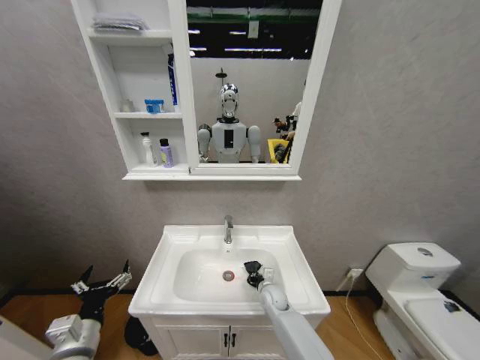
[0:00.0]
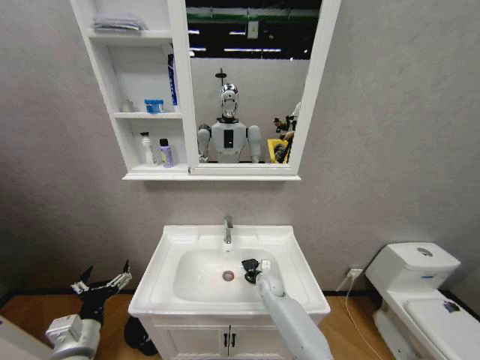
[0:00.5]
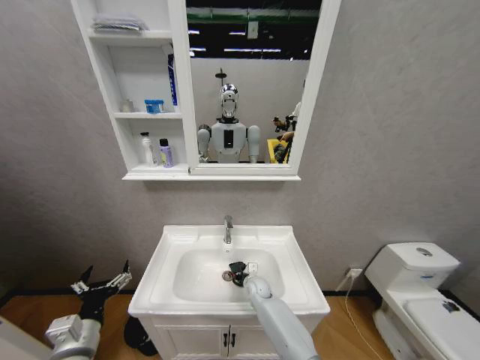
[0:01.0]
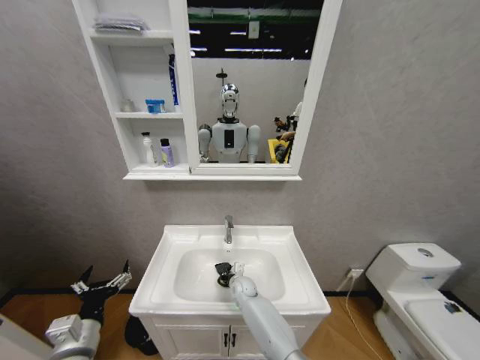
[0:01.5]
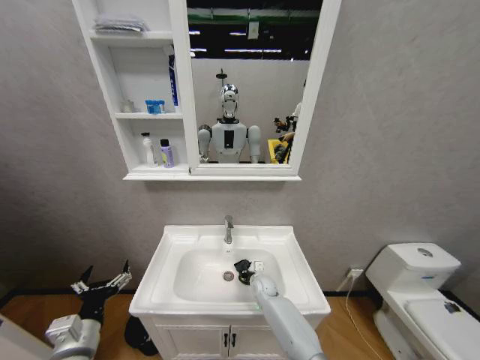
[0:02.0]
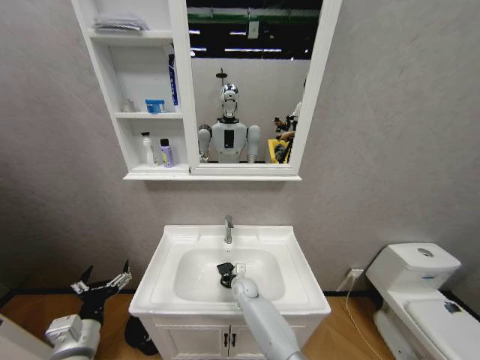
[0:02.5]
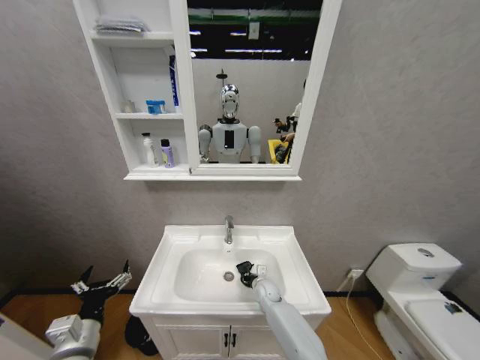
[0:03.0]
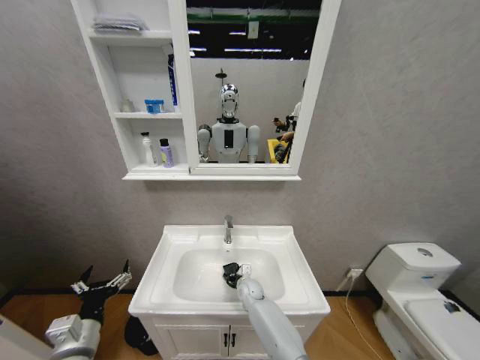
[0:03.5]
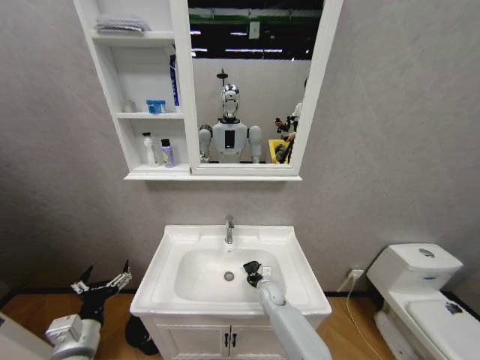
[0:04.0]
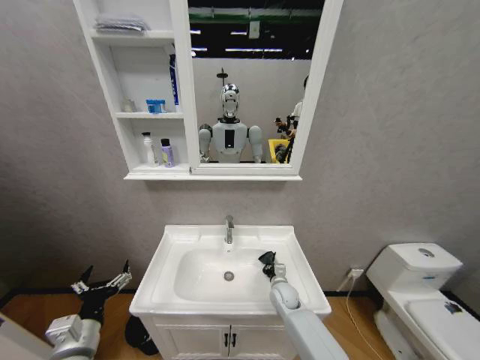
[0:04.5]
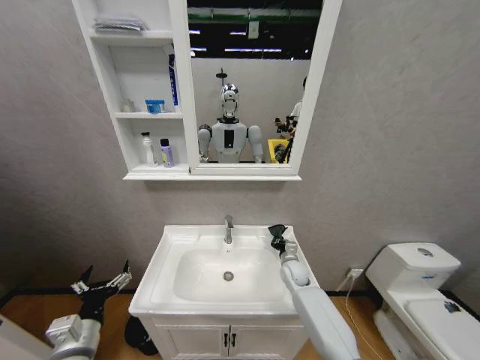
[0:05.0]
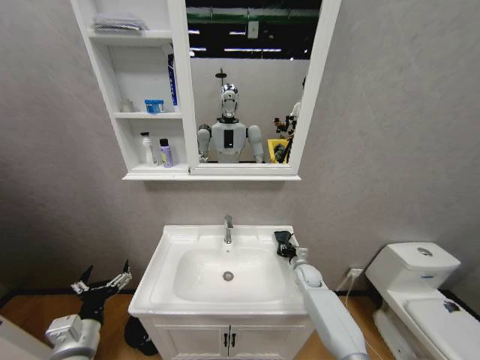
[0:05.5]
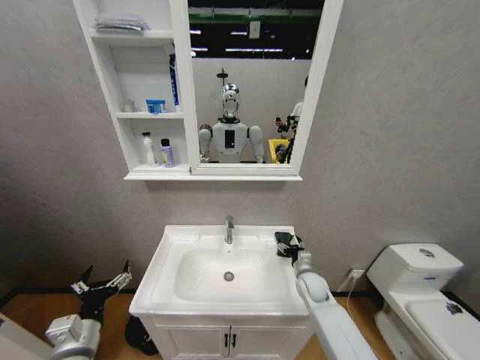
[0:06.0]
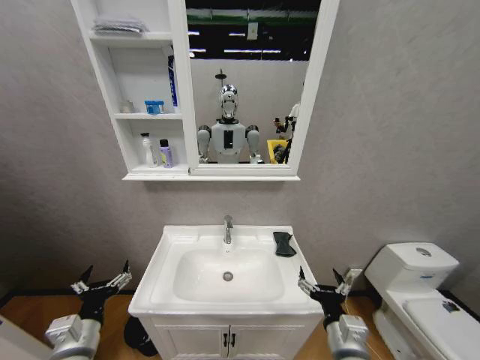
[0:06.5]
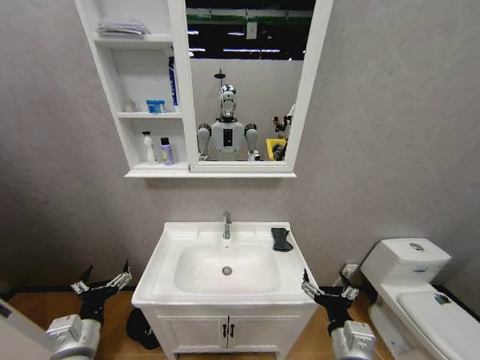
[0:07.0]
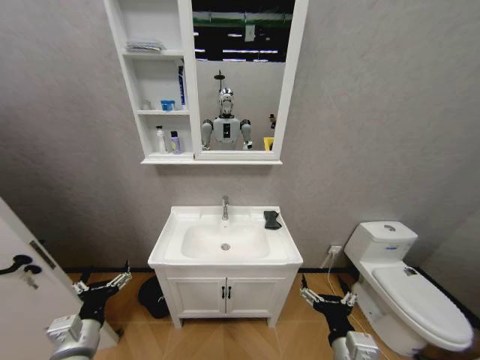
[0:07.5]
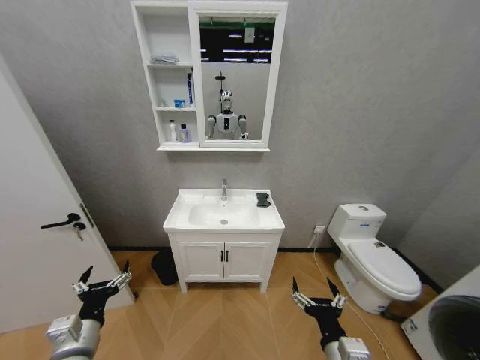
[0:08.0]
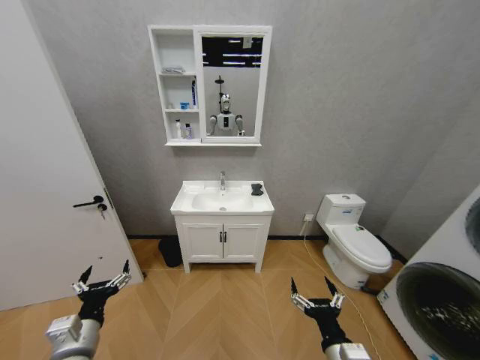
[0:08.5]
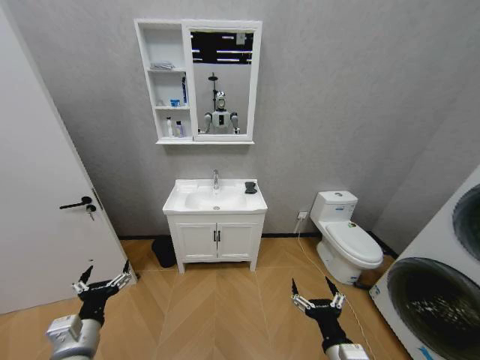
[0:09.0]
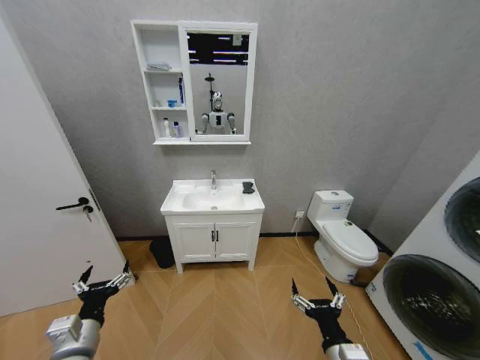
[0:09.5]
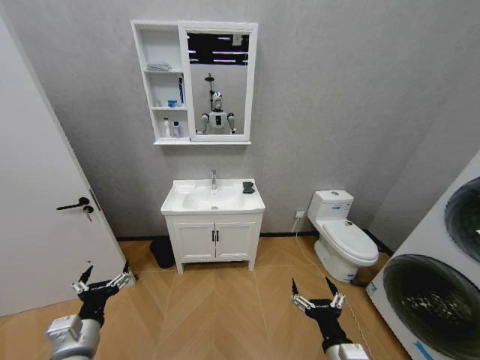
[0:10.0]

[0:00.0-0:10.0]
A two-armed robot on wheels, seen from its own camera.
Task of the whole recording: Move facial cleanser and shampoo from washbasin to cabinet, then wipe washbasin with towel.
0:00.0 to 0:02.0: The right gripper moves roughly 10 cm to the left and comes back.
0:02.0 to 0:04.0: The right gripper moves left and right over some 10 cm, changing direction 3 times.
0:04.0 to 0:06.0: The right gripper heads to the right and upward, covering roughly 15 cm, and opens up.
0:06.0 to 0:08.0: The right gripper shifts approximately 30 cm backward.

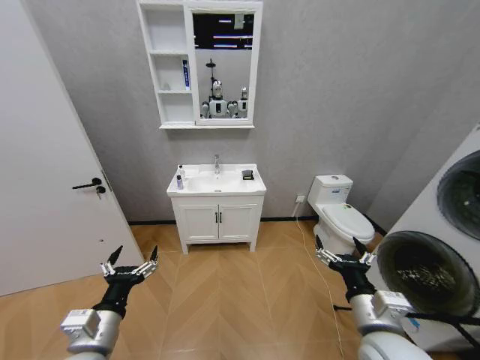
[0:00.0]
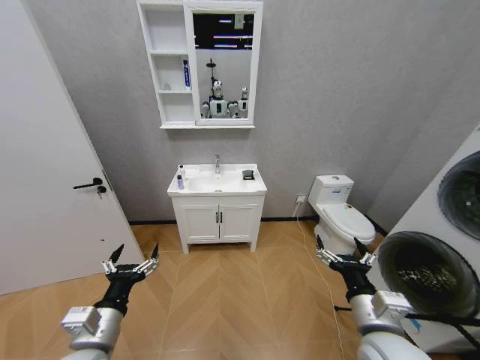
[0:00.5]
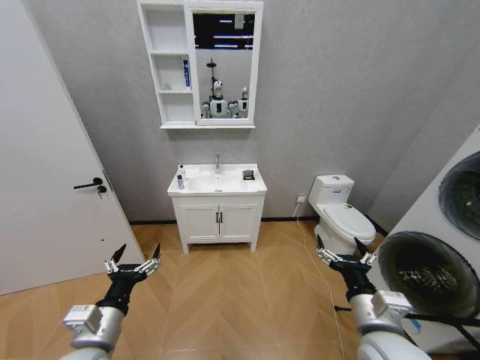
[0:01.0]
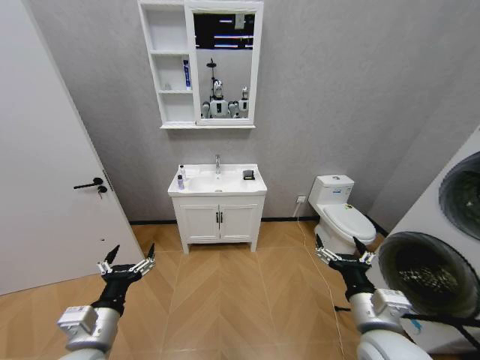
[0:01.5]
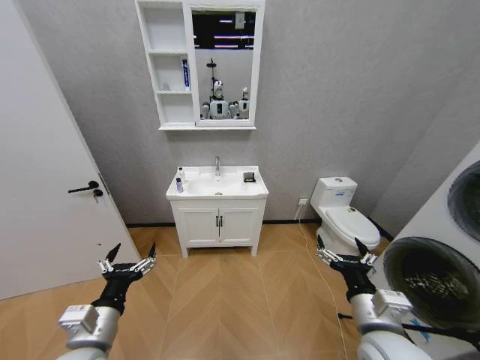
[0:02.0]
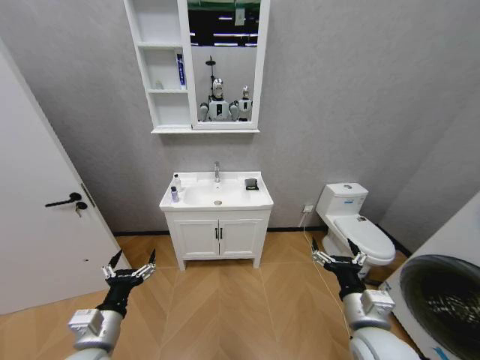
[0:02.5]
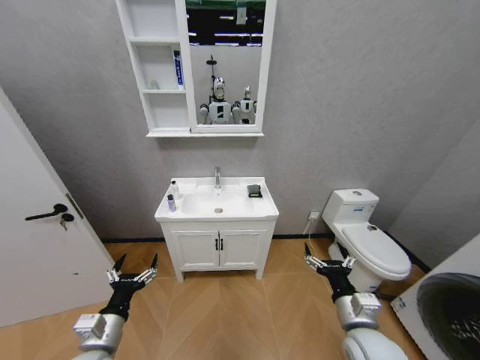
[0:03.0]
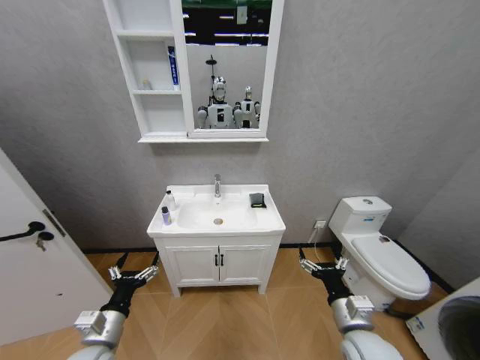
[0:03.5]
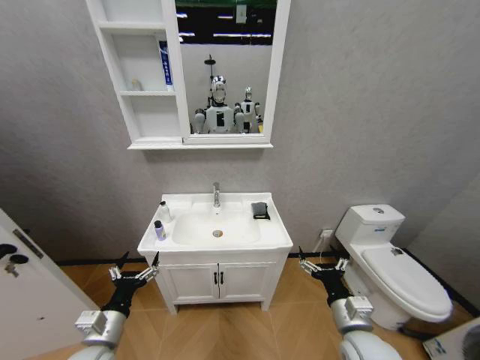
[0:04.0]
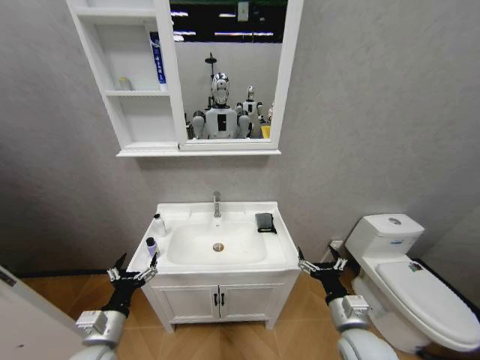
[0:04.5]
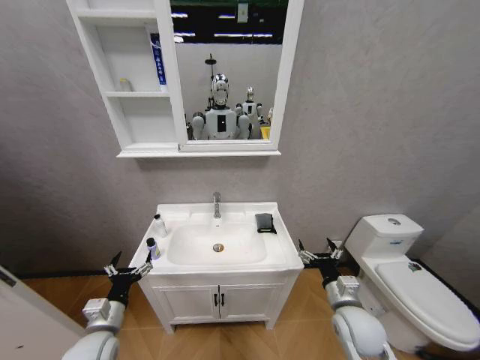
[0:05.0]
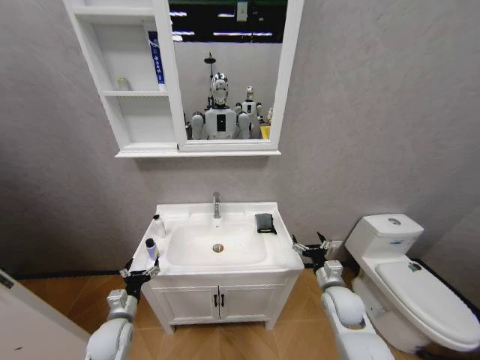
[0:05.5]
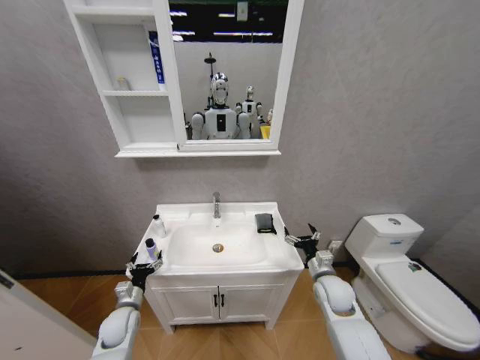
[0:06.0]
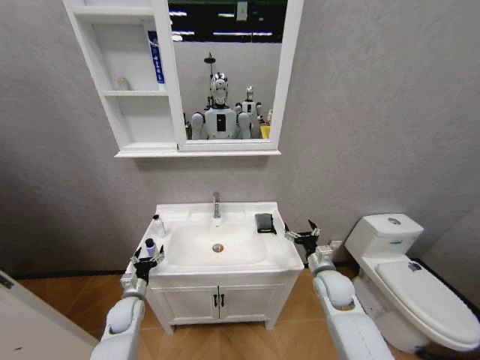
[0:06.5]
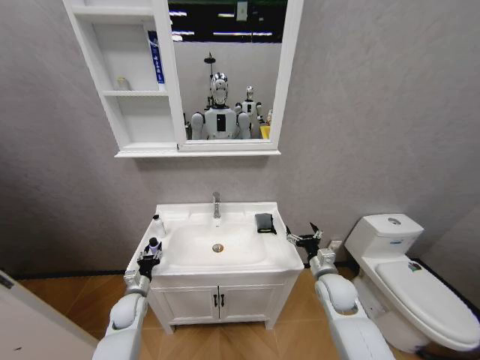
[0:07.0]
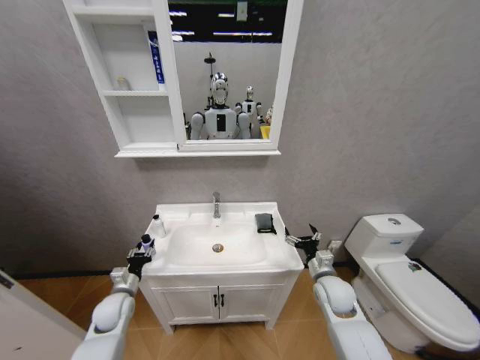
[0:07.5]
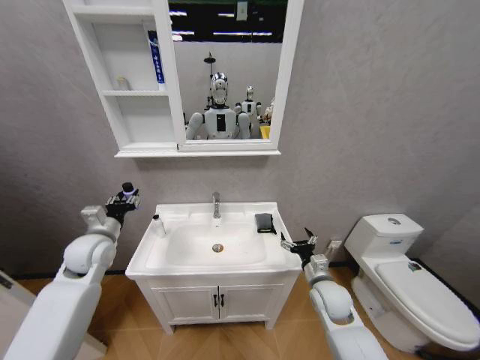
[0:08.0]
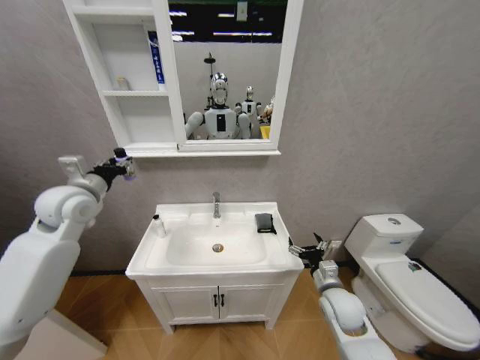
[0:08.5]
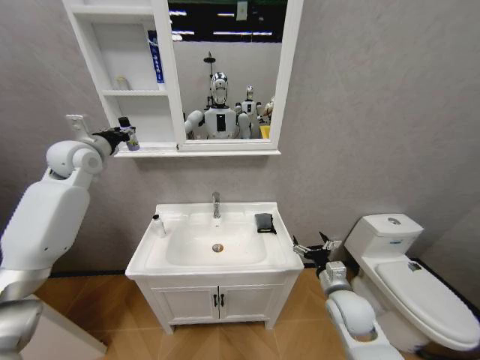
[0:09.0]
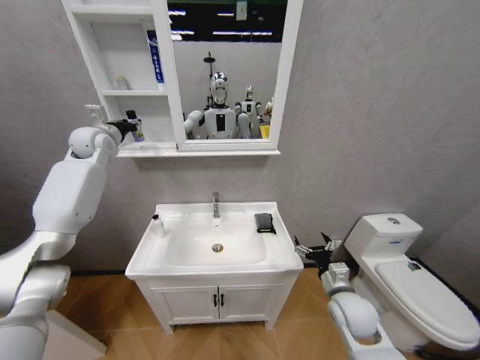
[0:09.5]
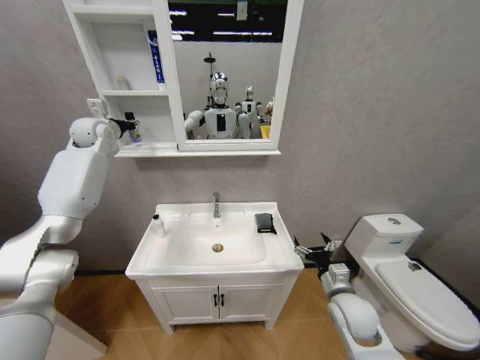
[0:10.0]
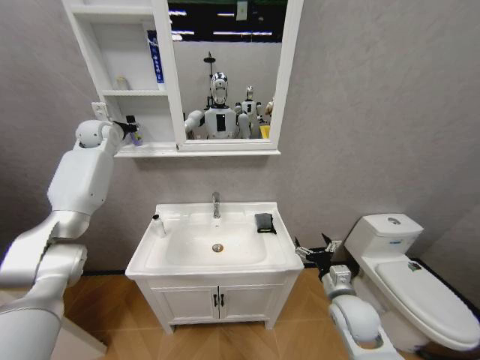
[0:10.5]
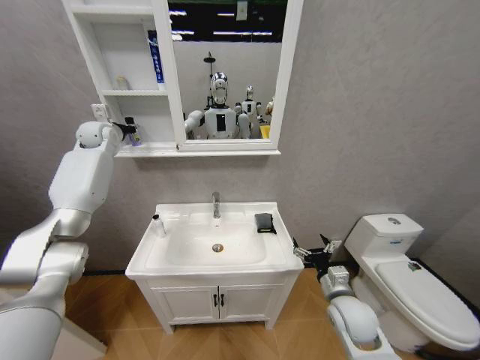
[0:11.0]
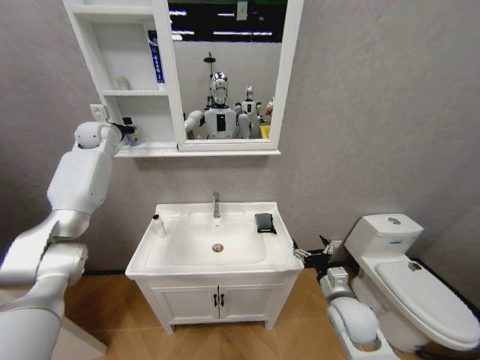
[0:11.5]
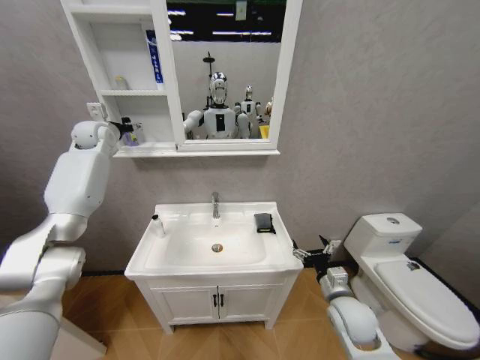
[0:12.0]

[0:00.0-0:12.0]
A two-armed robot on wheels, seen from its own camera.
Task of the whole recording: Move facial cleanser and shampoo from washbasin to cabinet, then wipe washbasin with towel.
0:02.0 to 0:04.0: The two grippers go approximately 5 cm downward.
0:04.0 to 0:06.0: The right gripper travels forward by roughly 15 cm. Meanwhile the left gripper is displaced downward and forward by about 15 cm.
0:06.0 to 0:08.0: The left gripper heads upward, covering some 25 cm, and closes up.
0:08.0 to 0:10.0: The right gripper changes place by roughly 5 cm, while the left gripper is displaced forward and upward by approximately 35 cm.
0:10.0 to 0:12.0: The left gripper opens.

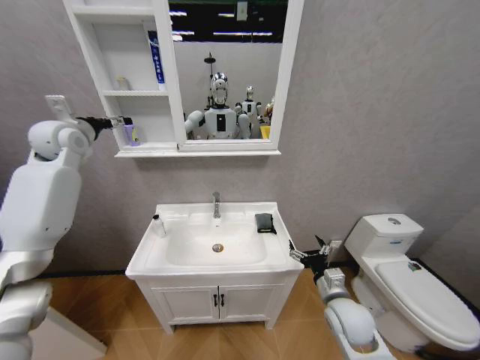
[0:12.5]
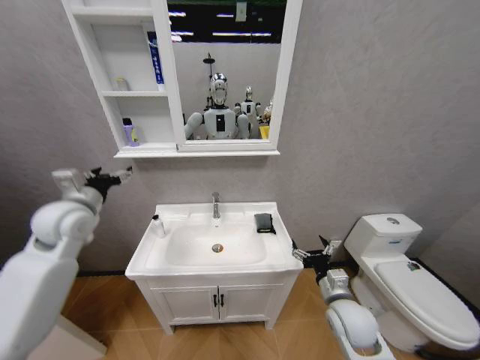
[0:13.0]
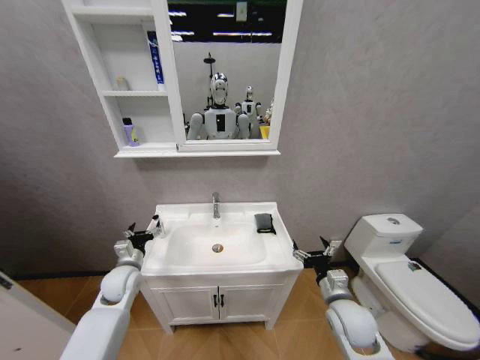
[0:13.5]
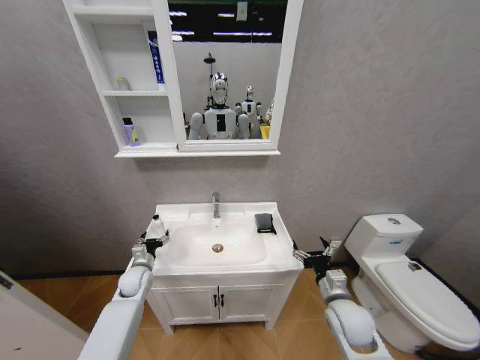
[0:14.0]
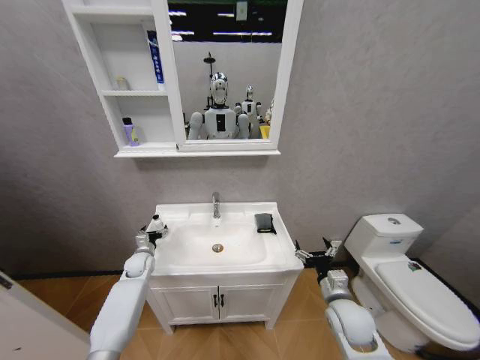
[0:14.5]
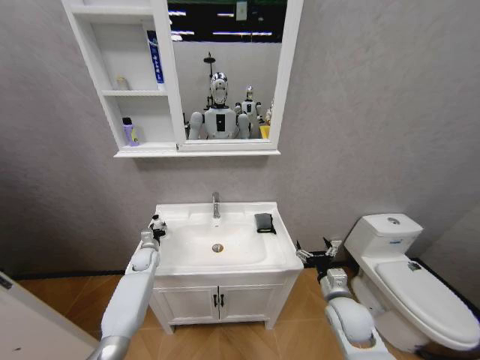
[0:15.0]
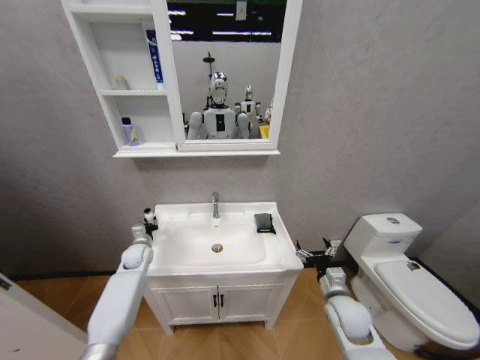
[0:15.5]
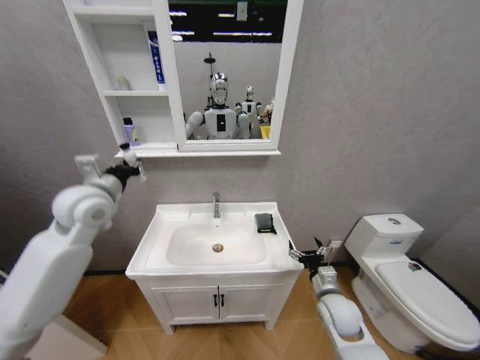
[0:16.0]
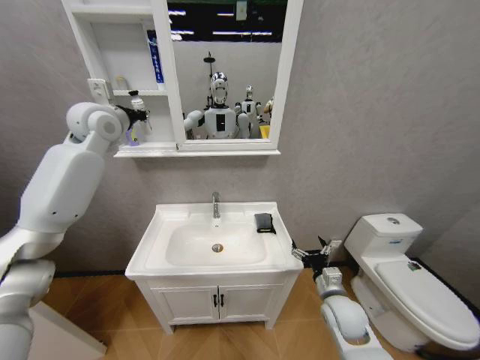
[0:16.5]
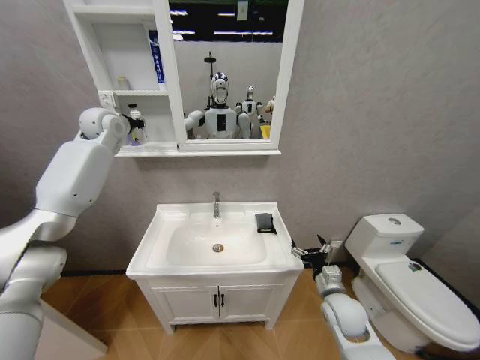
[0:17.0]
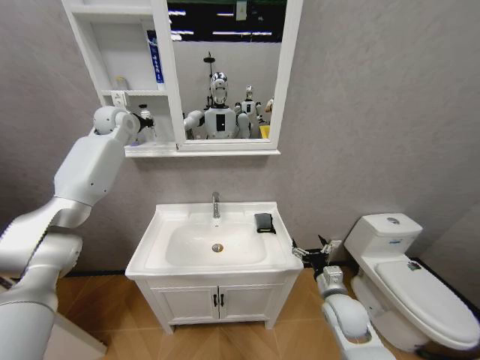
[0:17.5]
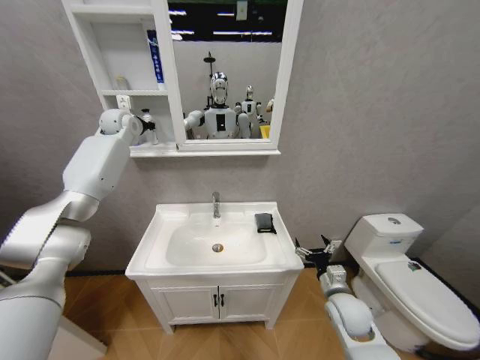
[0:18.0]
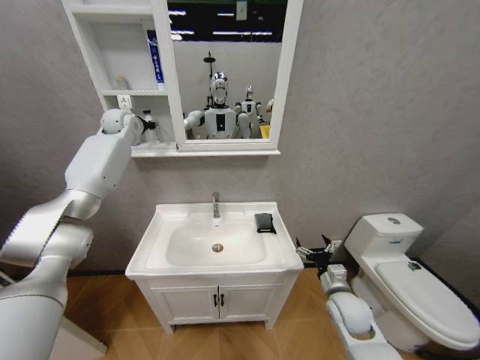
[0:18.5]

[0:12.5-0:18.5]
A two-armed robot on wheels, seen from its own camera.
Task of the whole recording: Move facial cleanser and shampoo from washbasin to cabinet, then wipe washbasin with towel.
0:12.5 to 0:14.5: The left gripper moves downward, about 40 cm.
0:14.5 to 0:16.5: The left gripper shifts approximately 50 cm upward, and closes.
0:16.5 to 0:18.5: The left gripper heads forward, covering about 15 cm.
